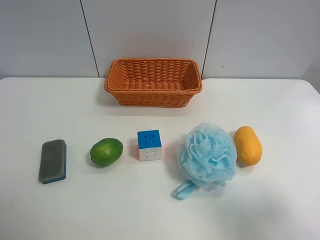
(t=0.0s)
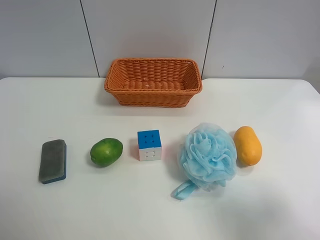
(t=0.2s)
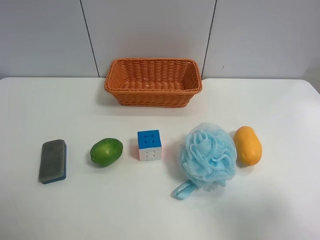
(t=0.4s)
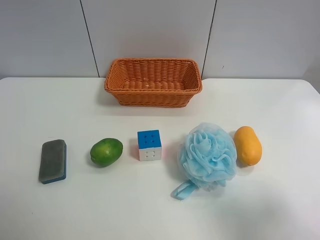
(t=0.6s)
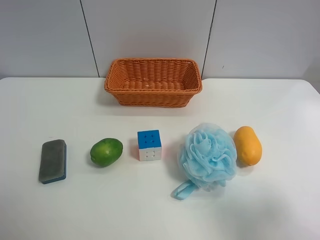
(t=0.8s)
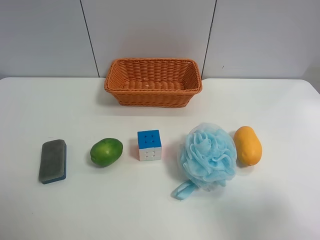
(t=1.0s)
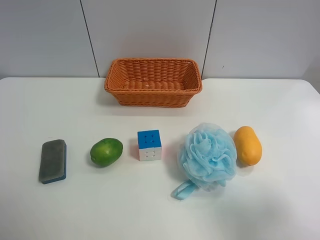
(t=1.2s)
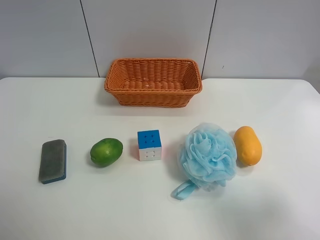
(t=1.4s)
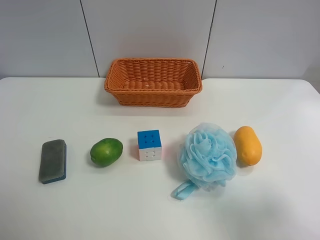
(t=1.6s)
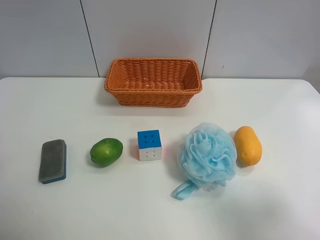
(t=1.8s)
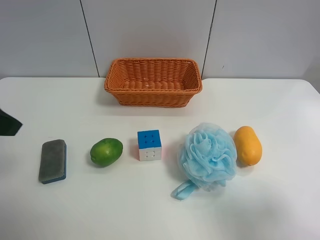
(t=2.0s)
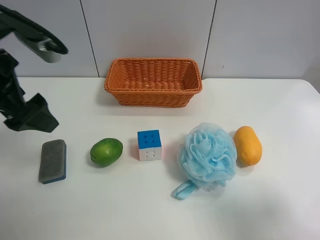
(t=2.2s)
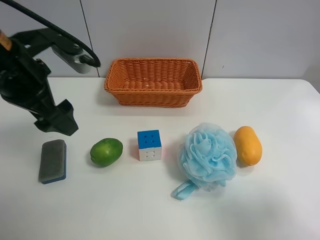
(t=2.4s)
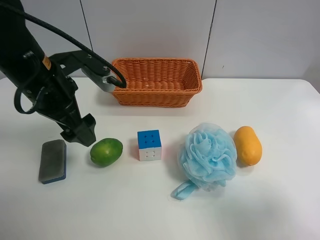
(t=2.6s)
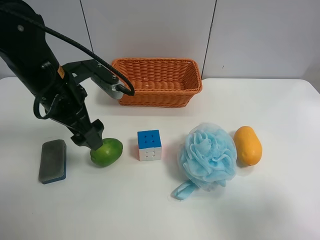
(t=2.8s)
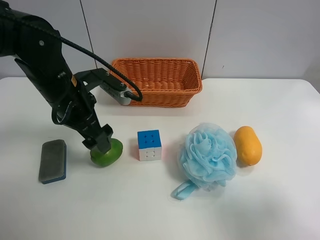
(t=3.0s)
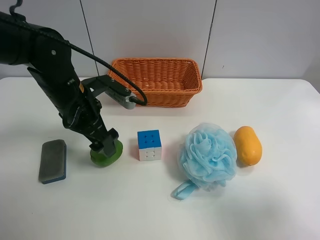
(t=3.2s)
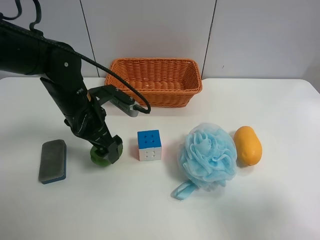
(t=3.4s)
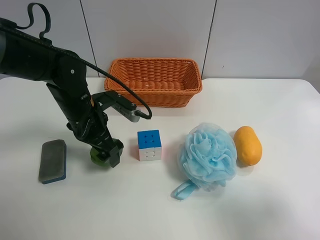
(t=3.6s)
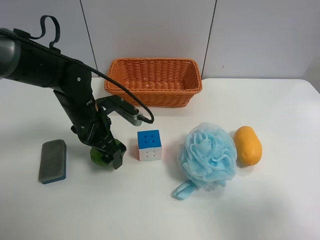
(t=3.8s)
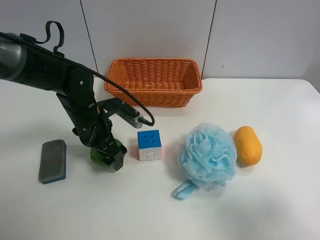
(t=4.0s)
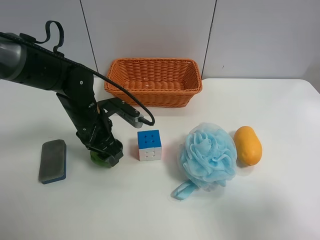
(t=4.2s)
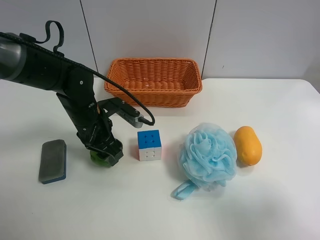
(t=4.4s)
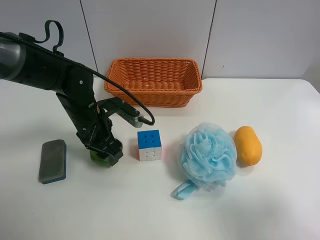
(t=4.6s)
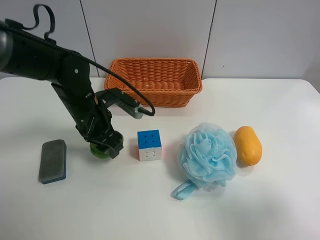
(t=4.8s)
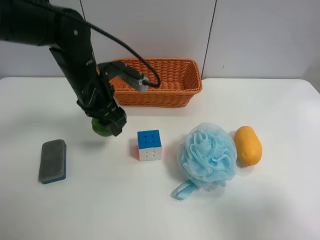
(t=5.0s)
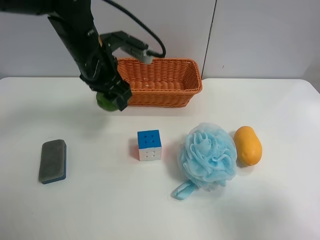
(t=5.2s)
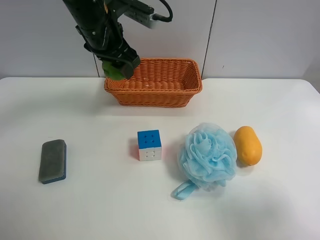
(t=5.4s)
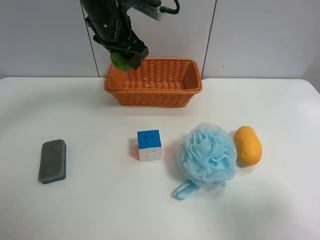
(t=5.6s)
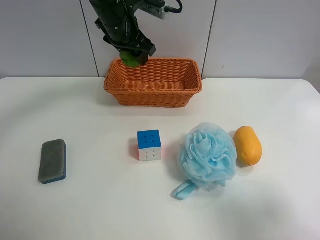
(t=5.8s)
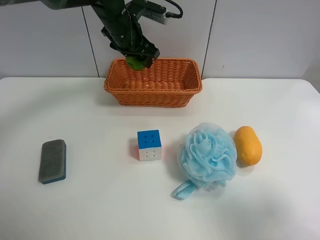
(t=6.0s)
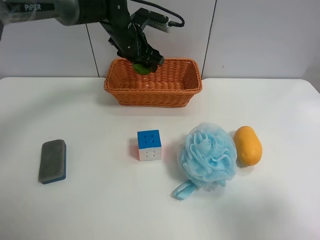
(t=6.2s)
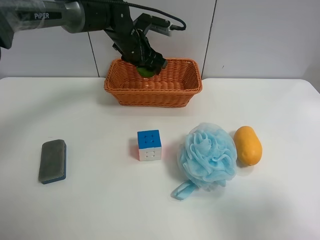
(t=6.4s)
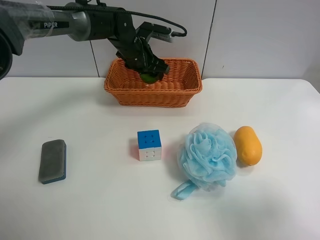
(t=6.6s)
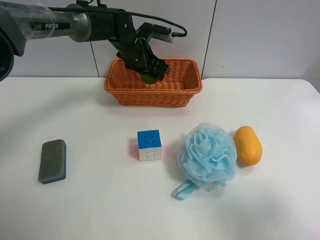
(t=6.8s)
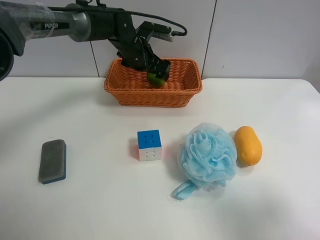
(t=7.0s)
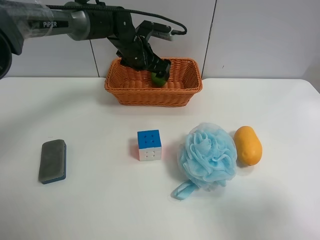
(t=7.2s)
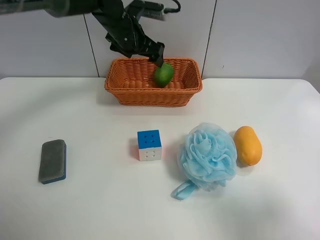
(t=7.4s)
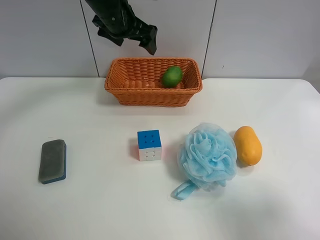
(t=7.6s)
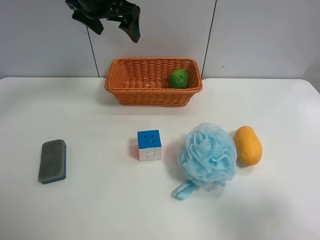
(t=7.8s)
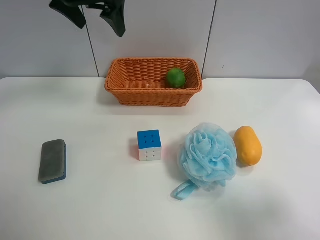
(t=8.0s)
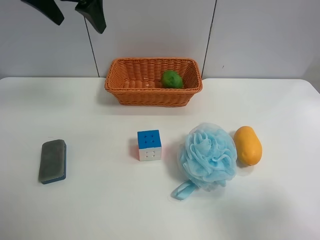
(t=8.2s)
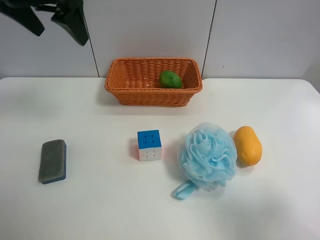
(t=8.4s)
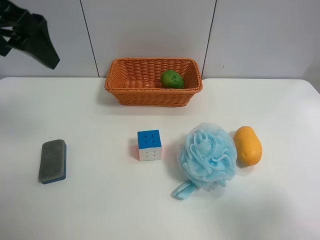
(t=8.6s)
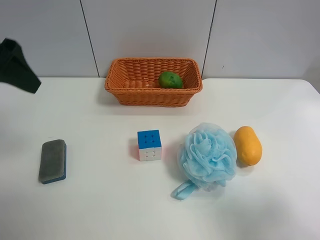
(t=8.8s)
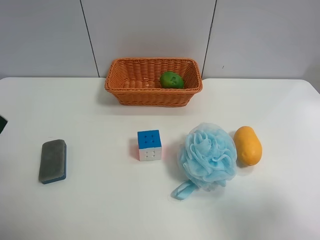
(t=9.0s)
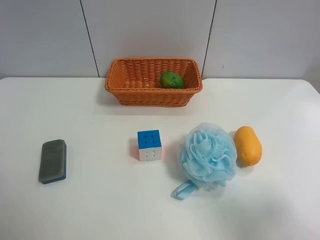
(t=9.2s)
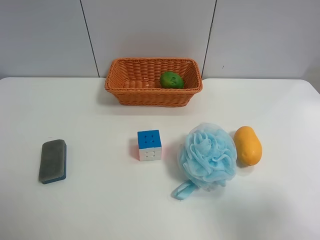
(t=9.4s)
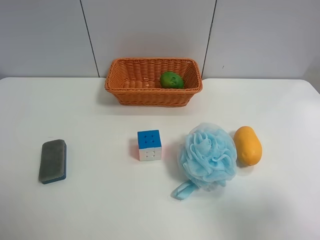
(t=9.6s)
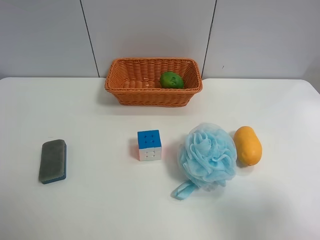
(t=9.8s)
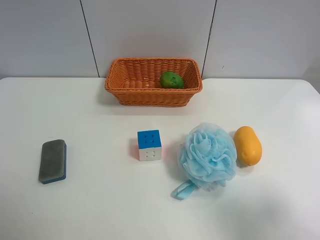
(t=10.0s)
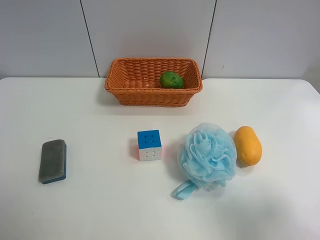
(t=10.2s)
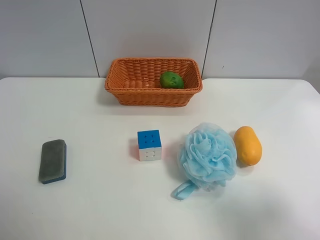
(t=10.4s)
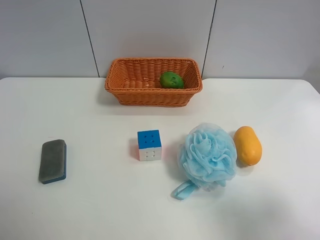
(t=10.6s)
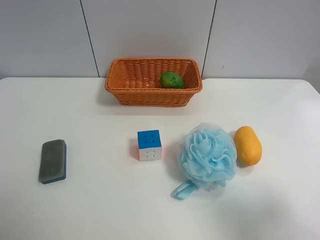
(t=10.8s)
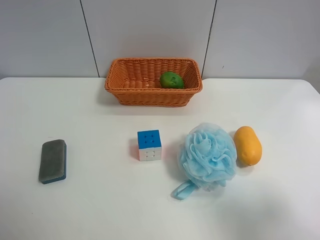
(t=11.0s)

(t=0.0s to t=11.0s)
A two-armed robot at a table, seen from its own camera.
Task of the whole recording: use the left gripper to grab items from the table and place them in the basket.
Step, t=0.0s - t=4.4s: Grasp the apple rubber puff with the left gripper.
Step, t=4.6s - t=7.2s: Place the apple rubber puff into the basket with the left gripper.
t=1.6s - t=3.2s: The left gripper travels forward, to the right and downward by approximately 30 cm.
t=3.2s - t=4.8s: The left gripper closes up.
t=4.8s - t=6.2s: The left gripper moves forward, approximately 15 cm.
t=6.2s - t=7.8s: The left gripper shifts approximately 15 cm upward, to the left and backward, and opens its fingers.
t=7.8s - t=9.4s: The left gripper is displaced backward and to the left by some 40 cm.
